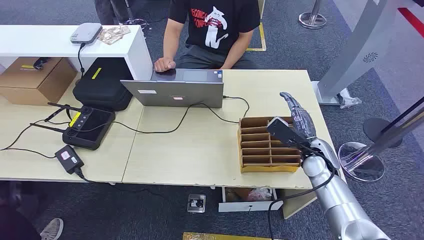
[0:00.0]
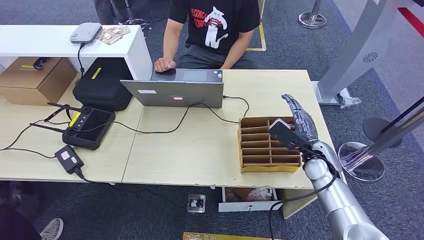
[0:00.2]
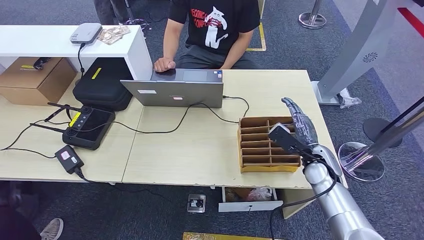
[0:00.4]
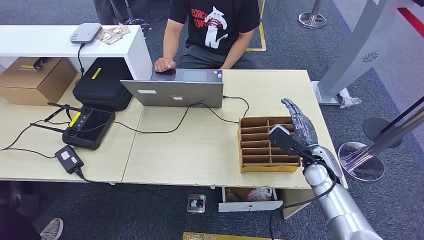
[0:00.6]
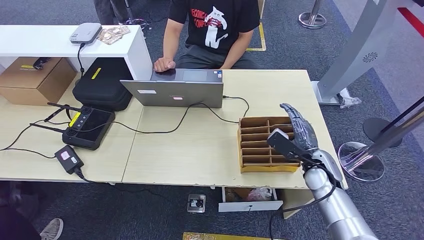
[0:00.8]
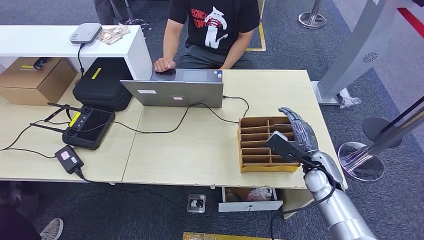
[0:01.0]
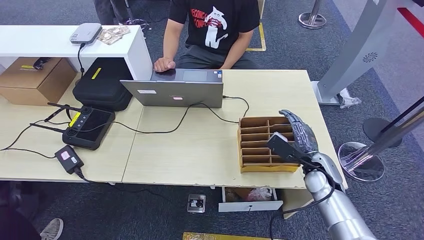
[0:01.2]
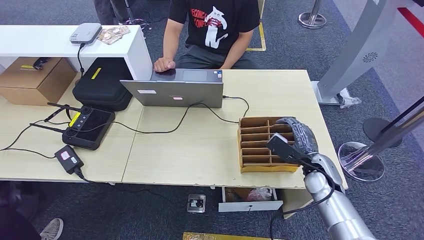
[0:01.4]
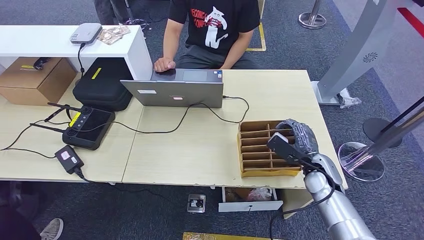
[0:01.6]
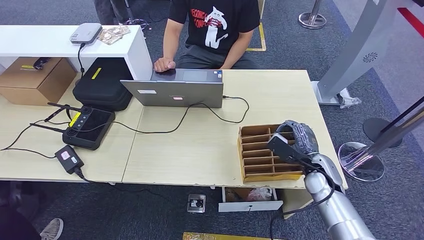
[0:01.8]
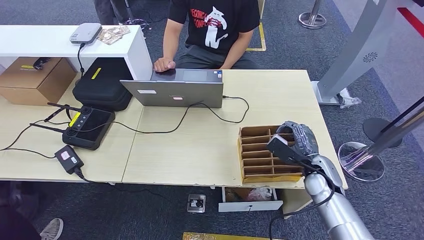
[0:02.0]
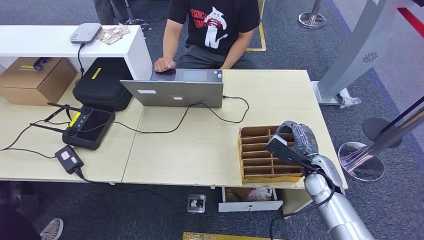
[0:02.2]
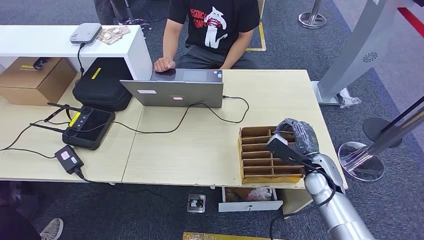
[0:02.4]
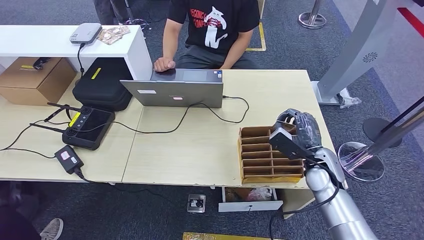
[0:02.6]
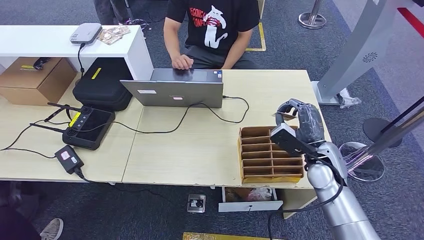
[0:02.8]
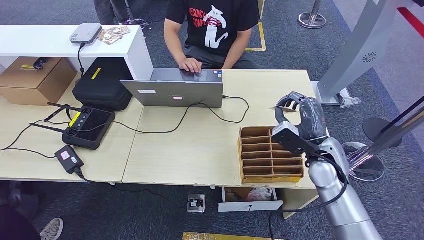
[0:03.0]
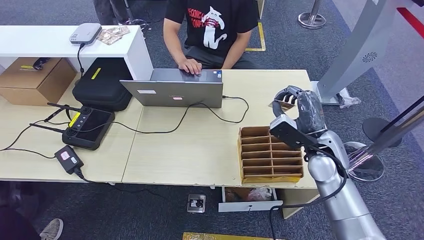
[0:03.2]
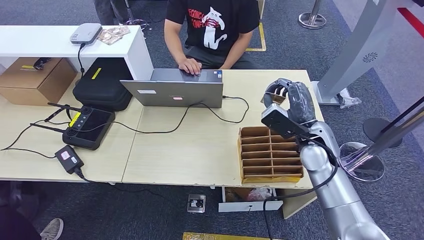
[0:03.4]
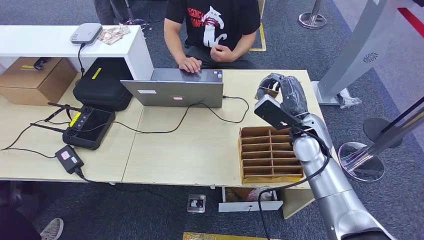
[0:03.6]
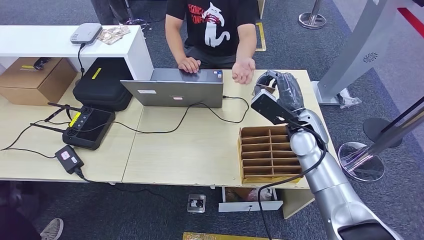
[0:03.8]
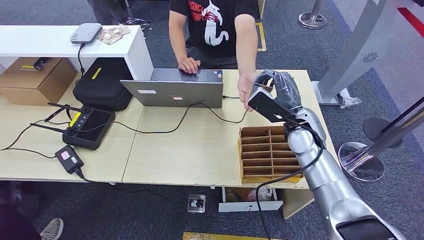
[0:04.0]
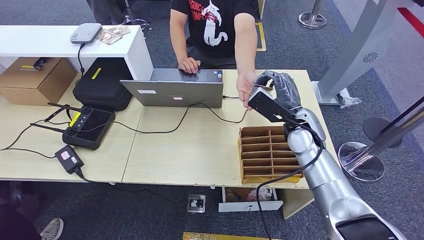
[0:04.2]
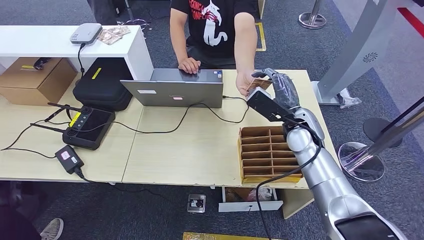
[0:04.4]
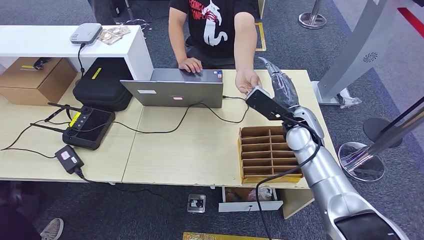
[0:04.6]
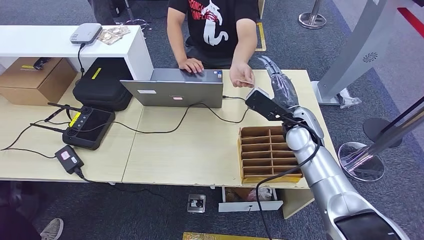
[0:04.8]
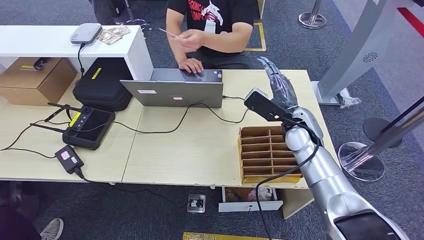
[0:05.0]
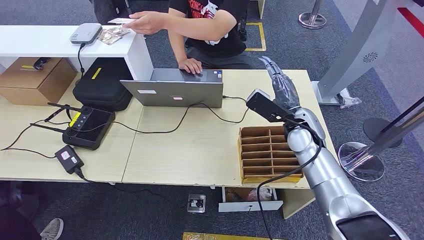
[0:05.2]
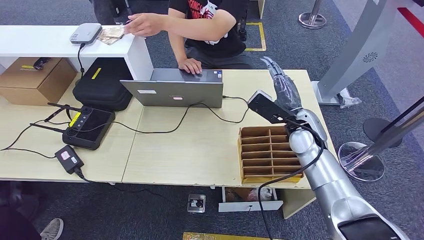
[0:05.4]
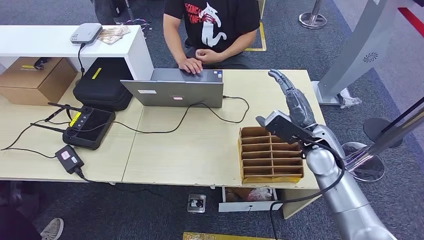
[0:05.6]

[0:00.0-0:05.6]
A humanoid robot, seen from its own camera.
Step, 0:00.0 to 0:03.0: Pick up the room card from the card holder.
Step, 0:03.2 to 0:05.6: Hand the room card to the target.
0:01.4 to 0:02.8: The right hand heads upward, covering approximately 5 cm.
0:02.8 to 0:04.2: The right hand goes roughly 10 cm forward, to the left and upward.
0:04.2 to 0:05.6: The right hand changes place by some 5 cm.
